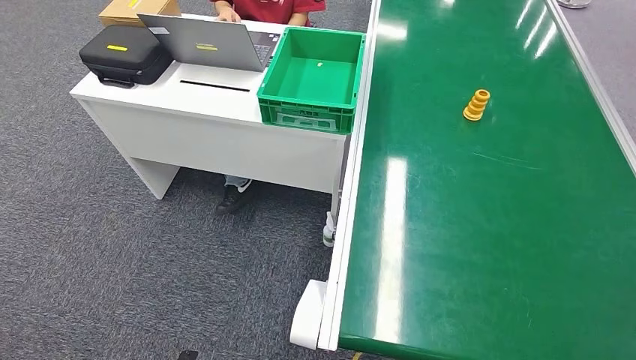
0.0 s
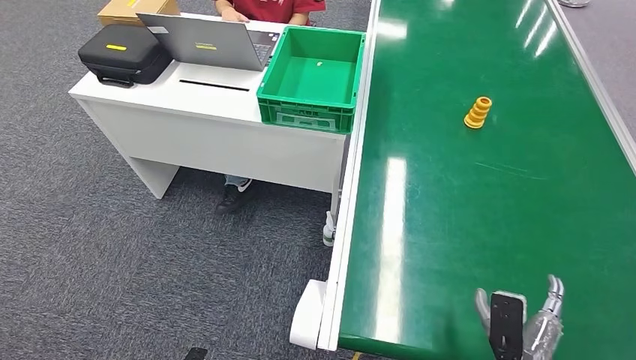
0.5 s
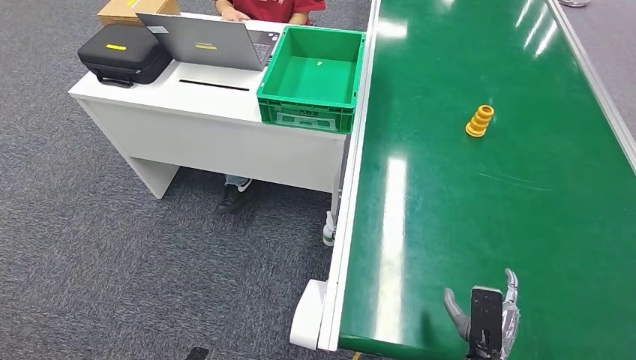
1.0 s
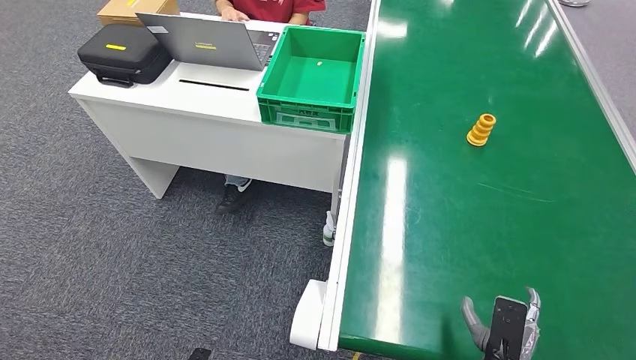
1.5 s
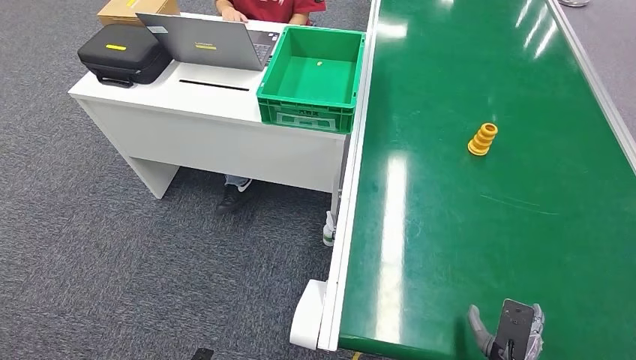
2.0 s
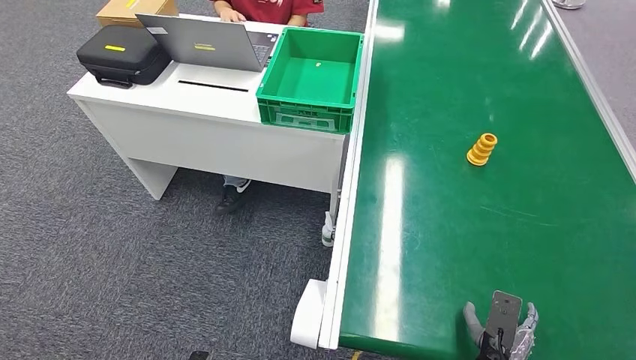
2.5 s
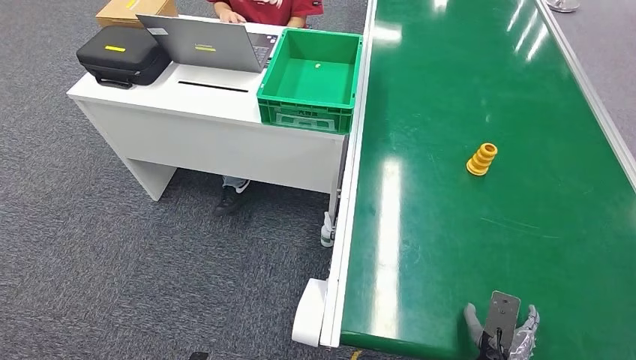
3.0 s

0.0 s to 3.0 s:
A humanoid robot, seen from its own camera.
Step, 0.0 to 3.0 s: Pick up the bottle from the table.
0.0 to 1.5 s: The right hand shifts some 15 cm to the left and forward.
1.5 to 3.0 s: The right hand shifts by some 5 cm.

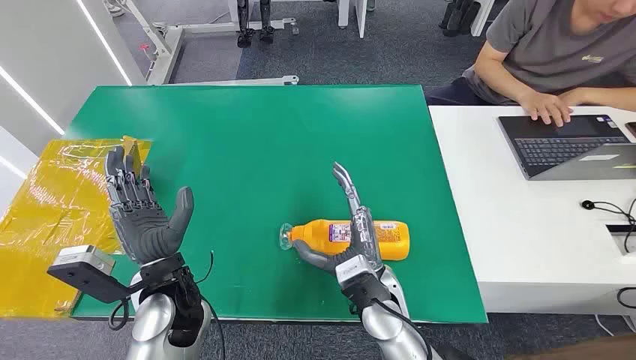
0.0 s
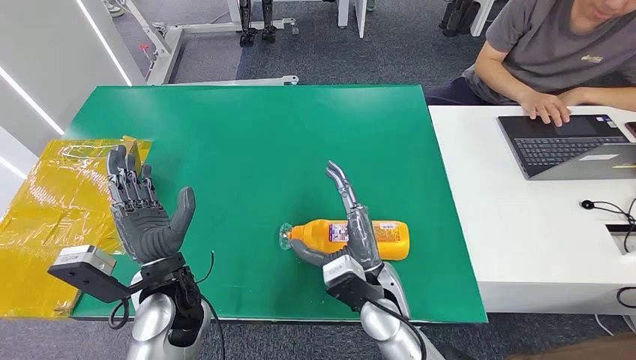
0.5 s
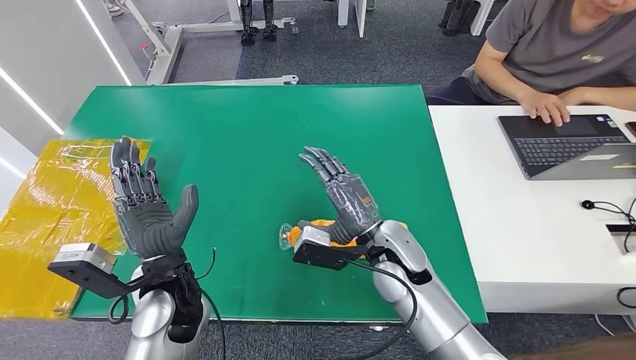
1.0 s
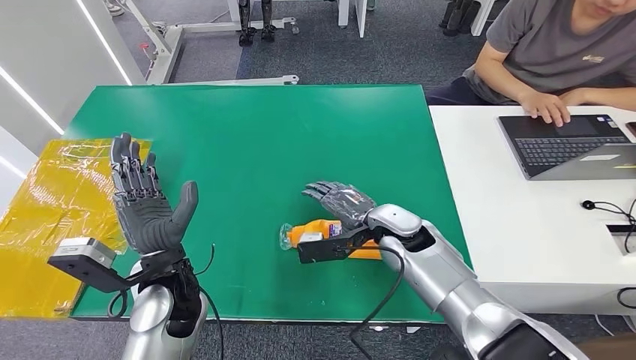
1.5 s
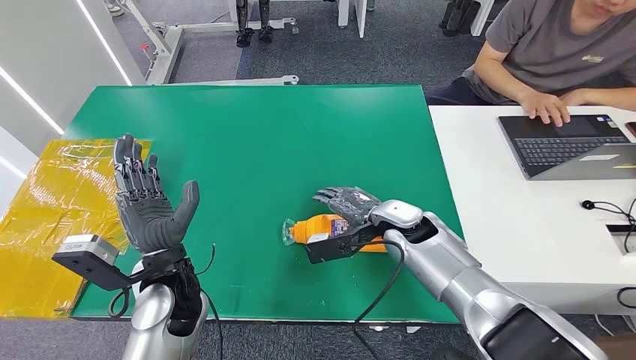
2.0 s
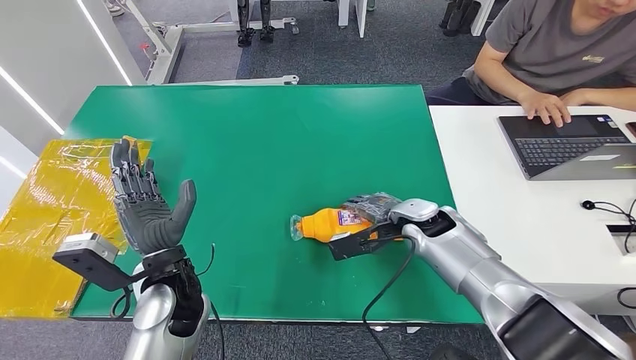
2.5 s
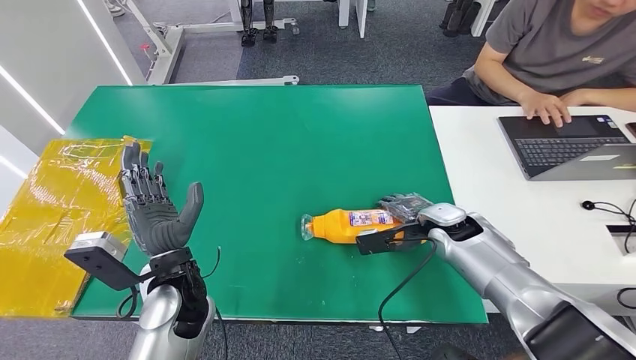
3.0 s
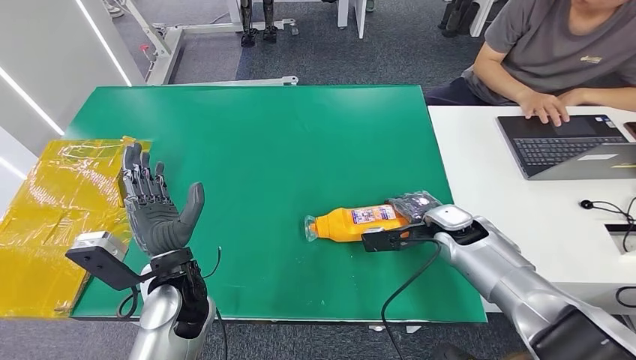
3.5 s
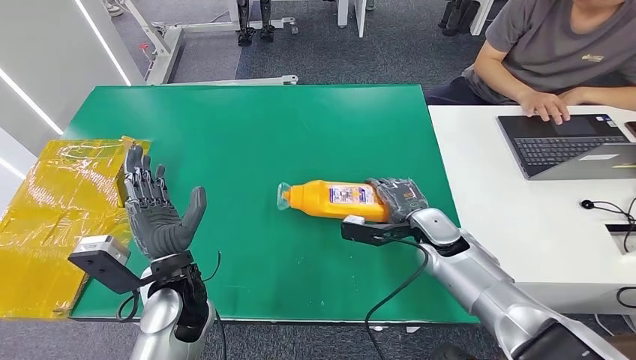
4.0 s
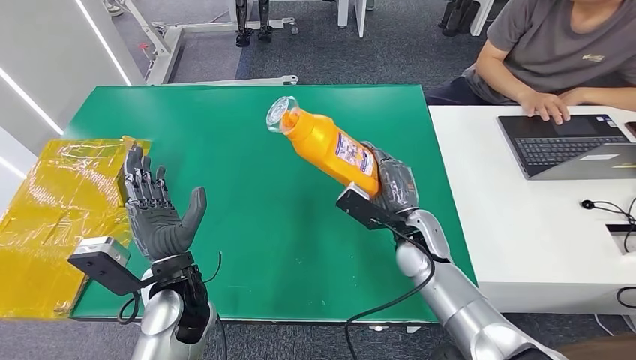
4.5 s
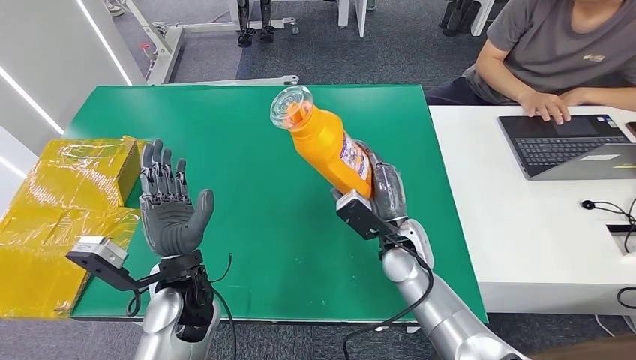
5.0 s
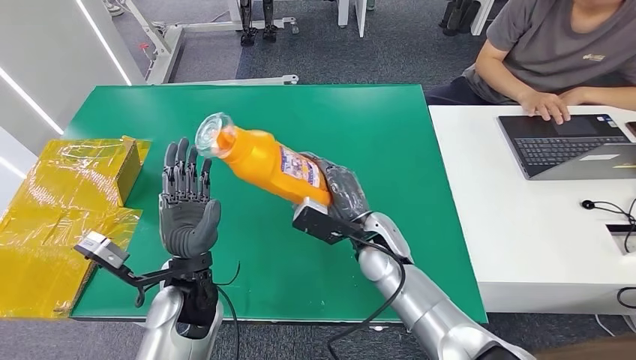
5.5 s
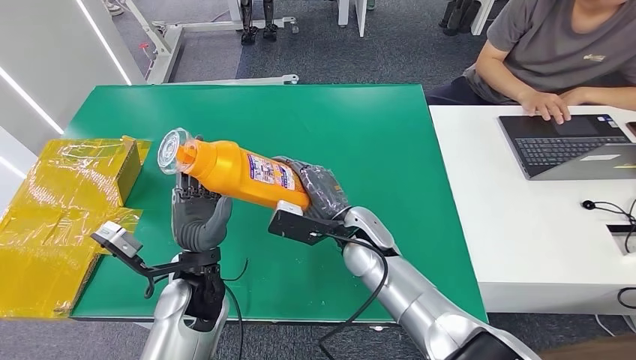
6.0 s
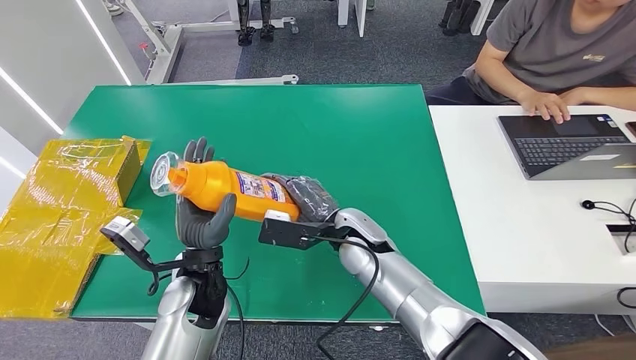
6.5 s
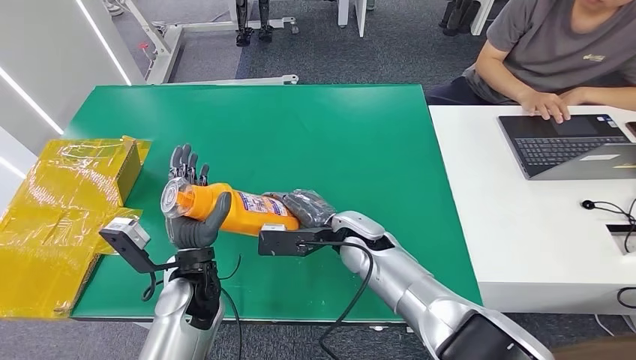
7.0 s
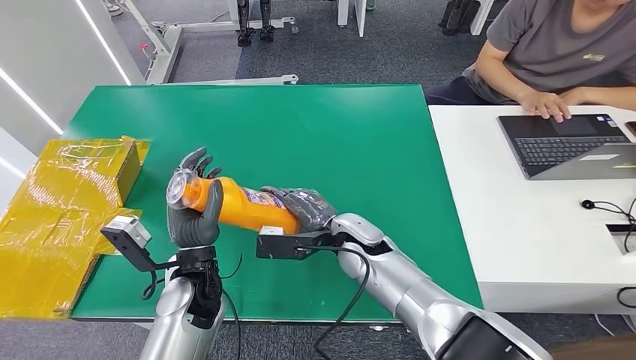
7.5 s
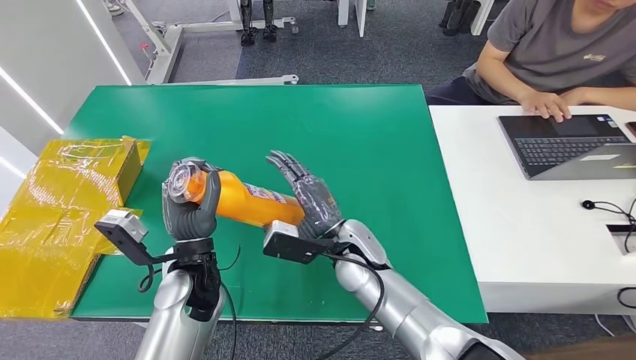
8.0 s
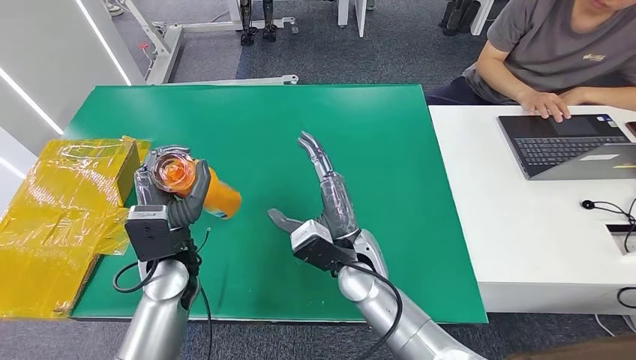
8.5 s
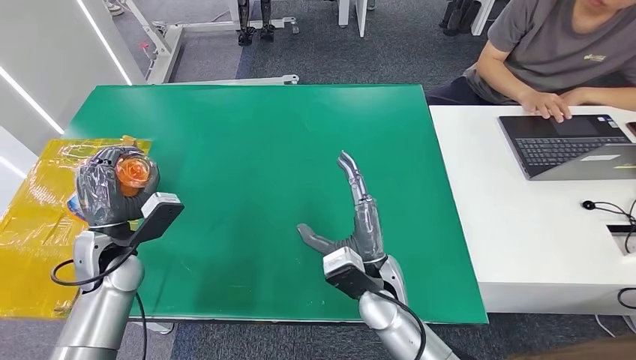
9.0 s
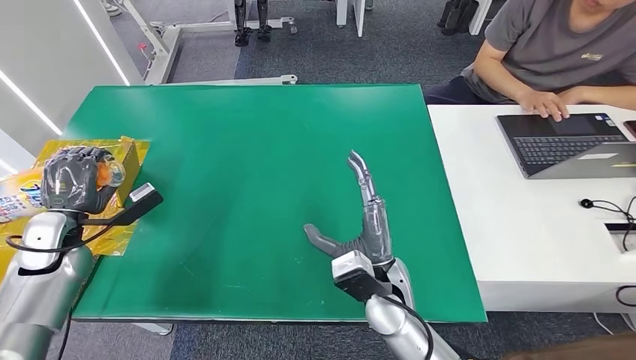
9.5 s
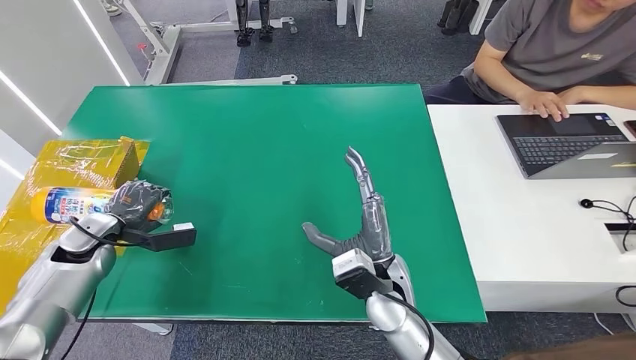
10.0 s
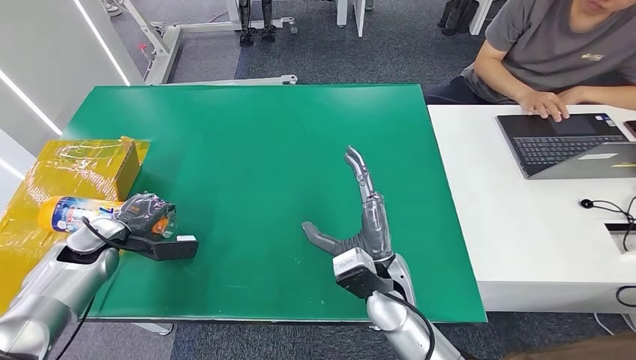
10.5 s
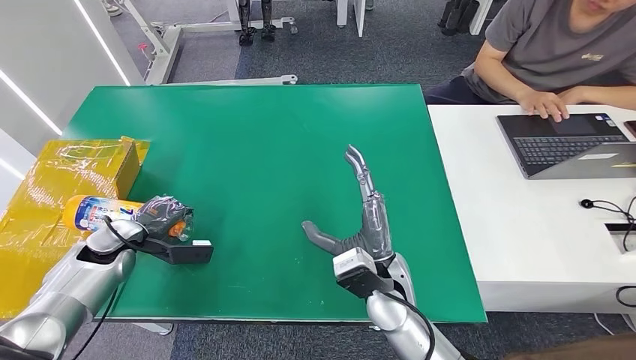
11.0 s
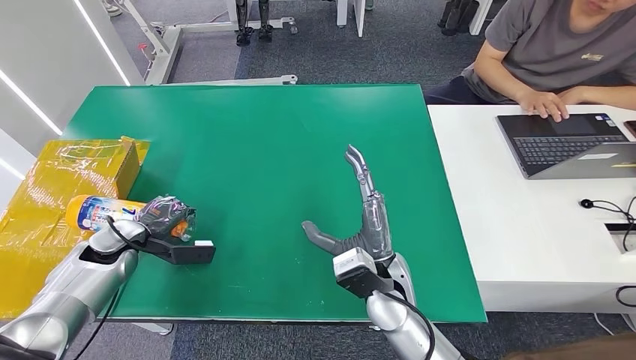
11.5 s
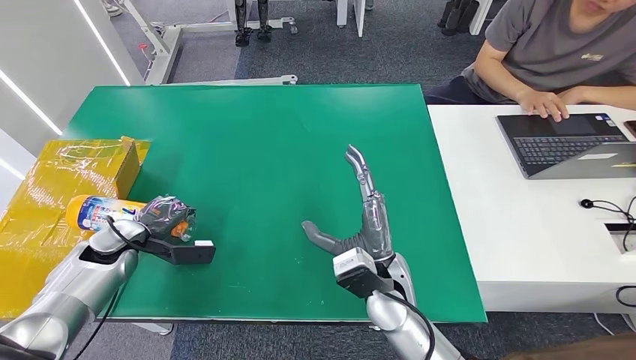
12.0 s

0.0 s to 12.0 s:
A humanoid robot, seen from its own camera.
Step, 0.0 to 7.0 s: Pick up the bottle from the table.
Step, 7.5 to 12.0 s: Turn the bottle to the front side.
2.0 to 4.0 s: The right hand travels to the right by about 5 cm.
10.0 to 12.0 s: The hands stay close to where they were, moving slightly.
